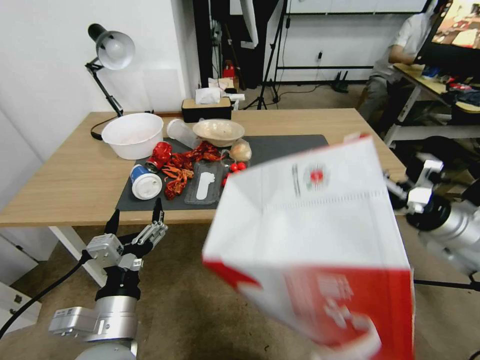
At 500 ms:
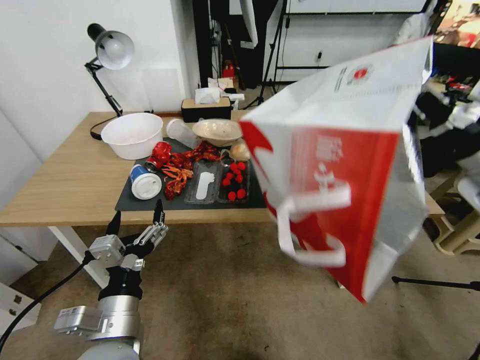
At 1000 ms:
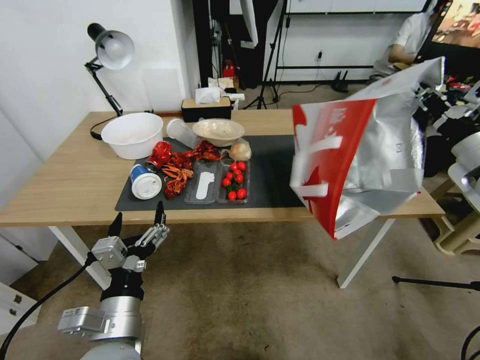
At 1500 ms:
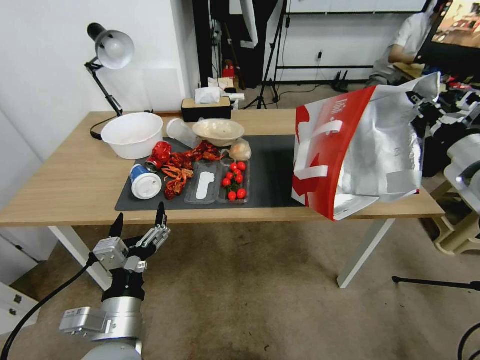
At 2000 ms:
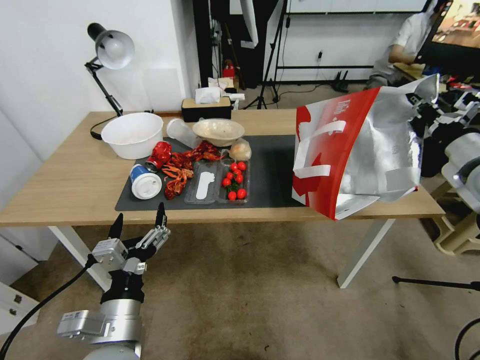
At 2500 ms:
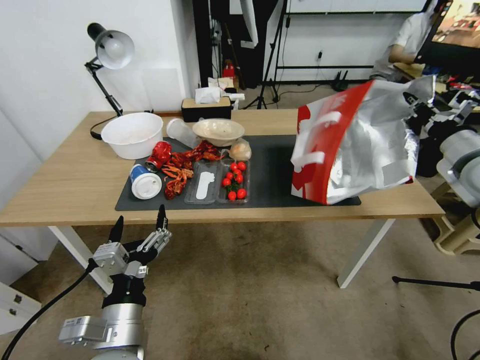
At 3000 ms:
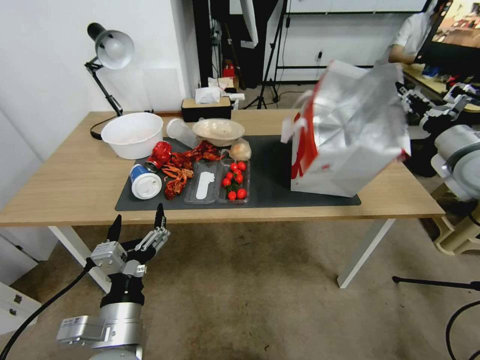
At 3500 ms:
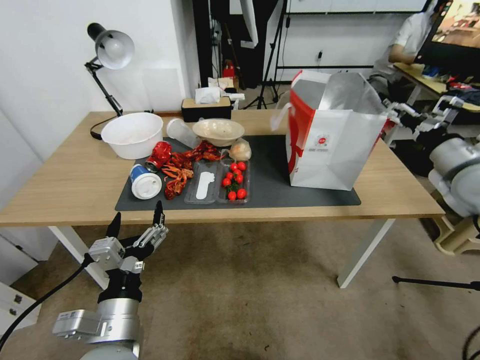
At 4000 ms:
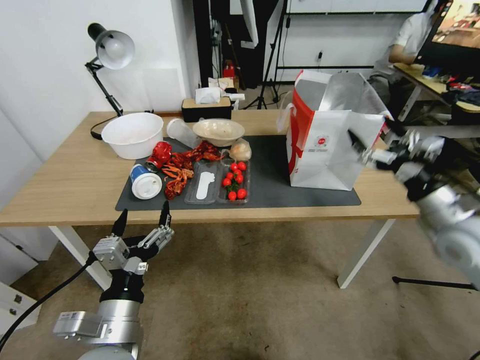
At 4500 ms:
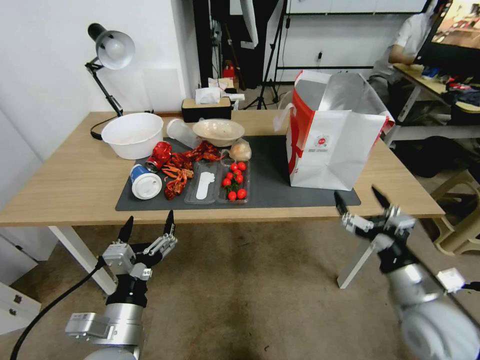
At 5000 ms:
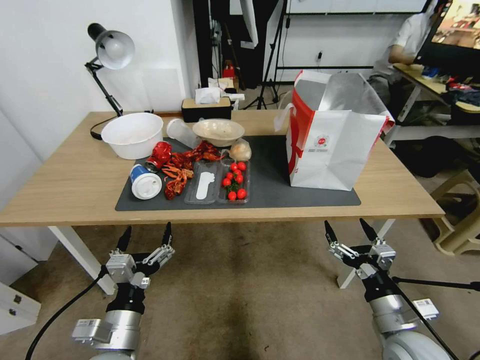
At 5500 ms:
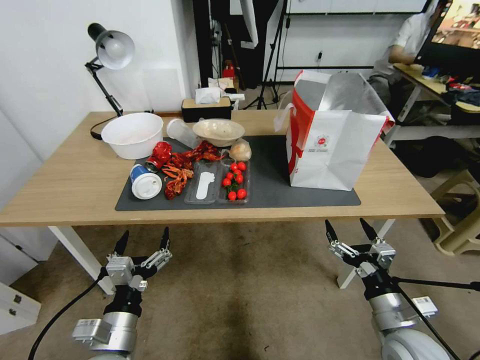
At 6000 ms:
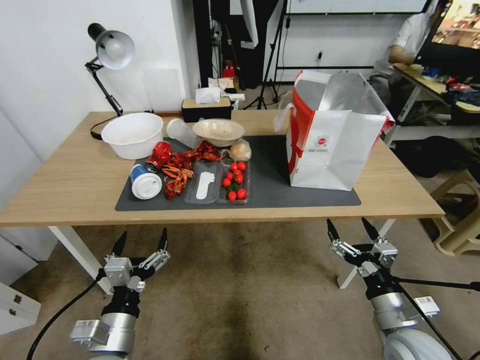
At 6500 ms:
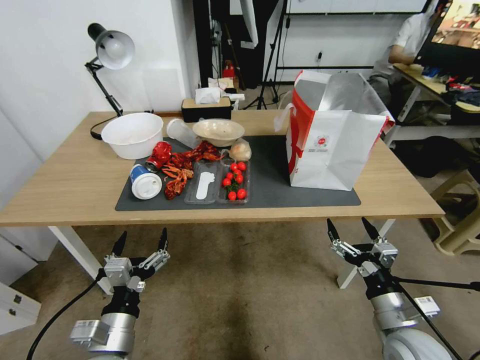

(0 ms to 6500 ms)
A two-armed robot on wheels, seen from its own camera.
Task of the whole recording: Pick up the food delivery bag from the floor and place it on the table.
0 ms - 2000 ms: The right gripper moves upward and forward, about 10 cm.
2000 ms - 4500 ms: The right gripper heads downward, backward and to the left, covering about 30 cm, and opens.
4500 ms - 6500 ms: The right gripper moves downward, approximately 5 cm. The left gripper changes place by about 5 cm.

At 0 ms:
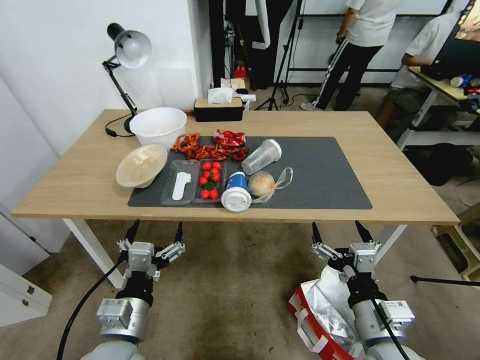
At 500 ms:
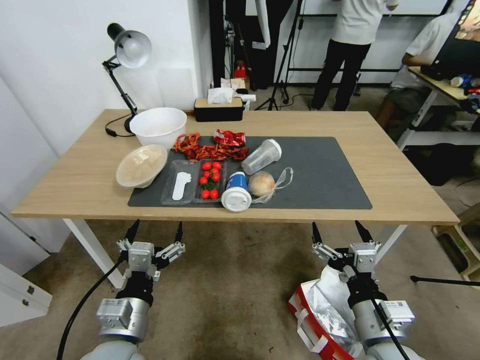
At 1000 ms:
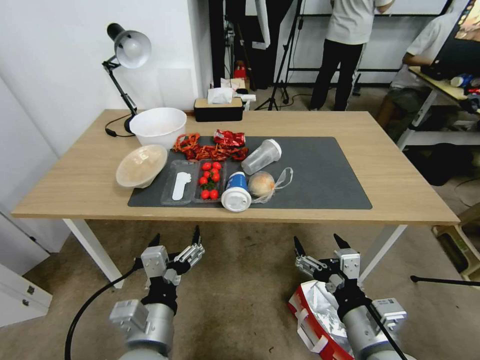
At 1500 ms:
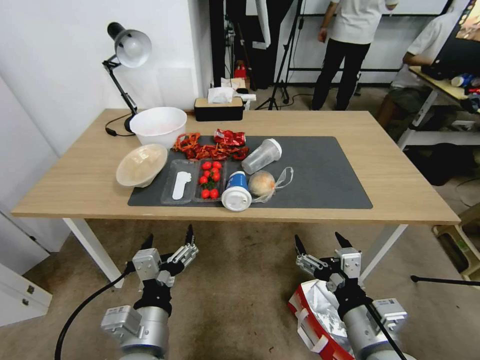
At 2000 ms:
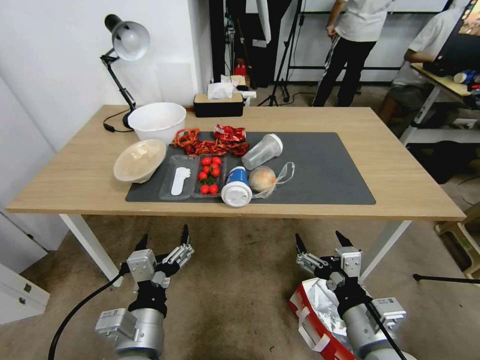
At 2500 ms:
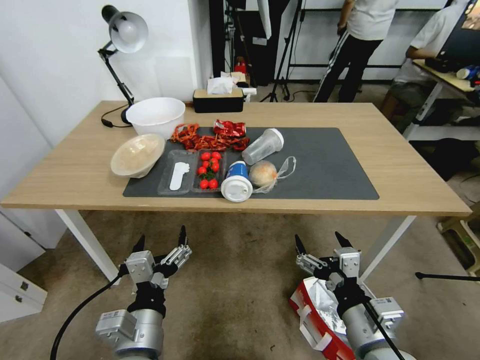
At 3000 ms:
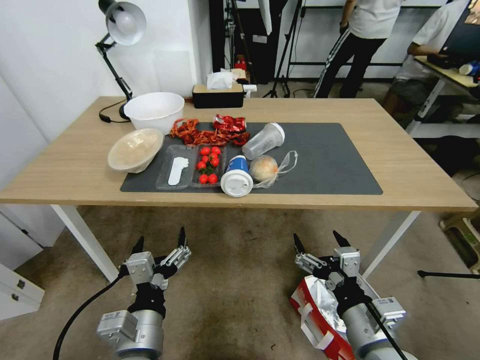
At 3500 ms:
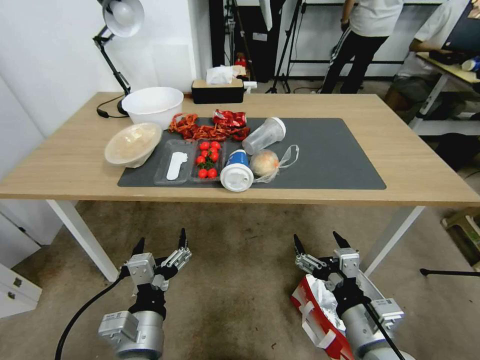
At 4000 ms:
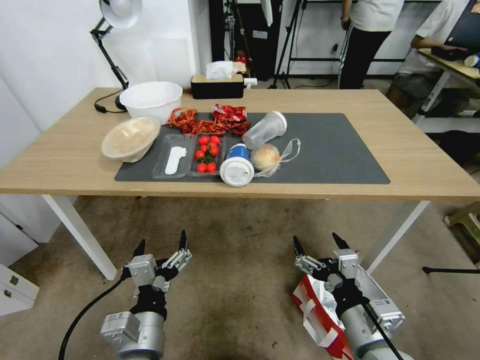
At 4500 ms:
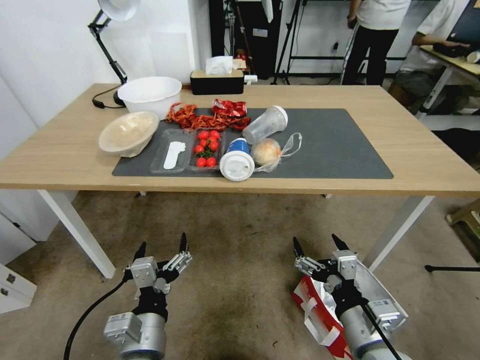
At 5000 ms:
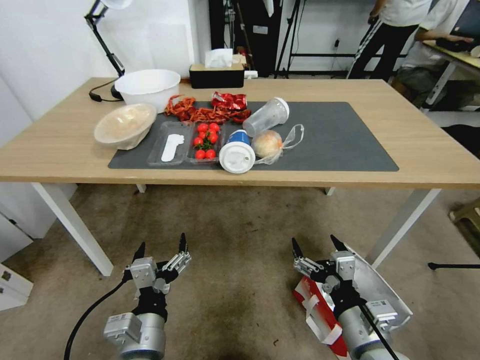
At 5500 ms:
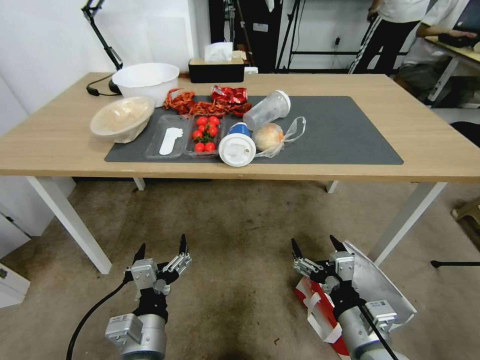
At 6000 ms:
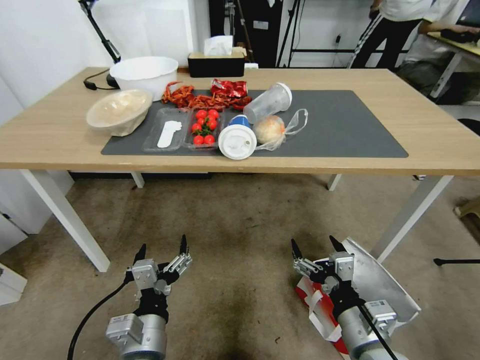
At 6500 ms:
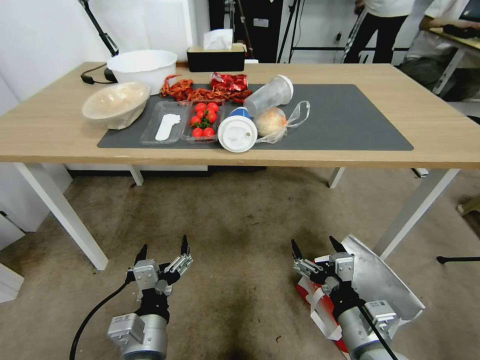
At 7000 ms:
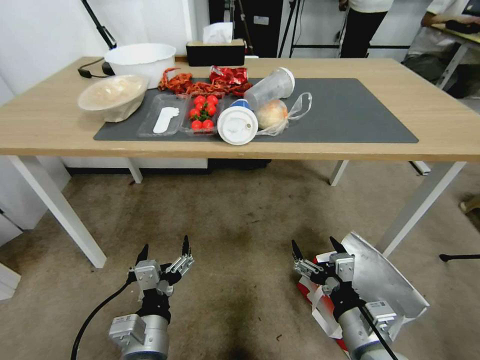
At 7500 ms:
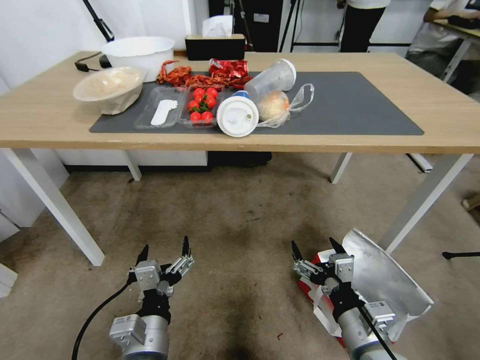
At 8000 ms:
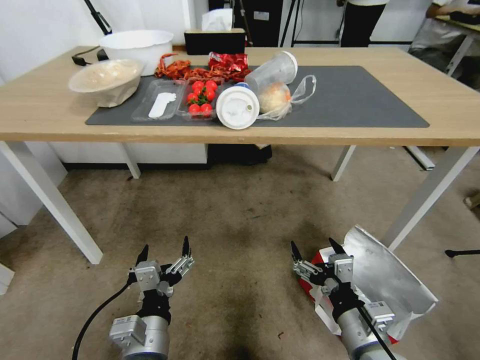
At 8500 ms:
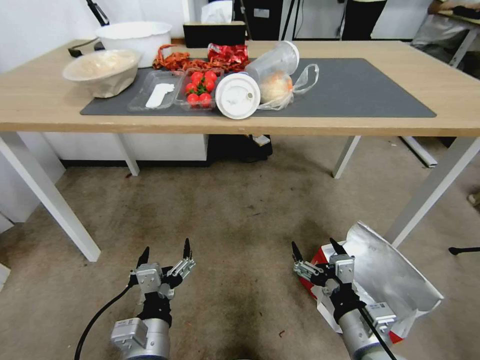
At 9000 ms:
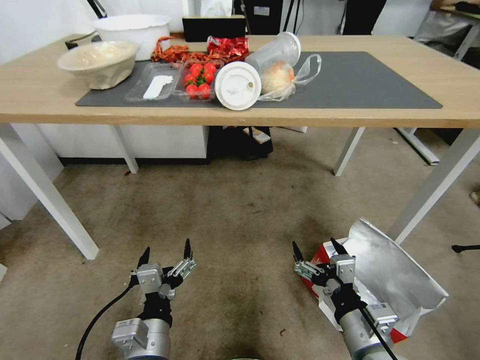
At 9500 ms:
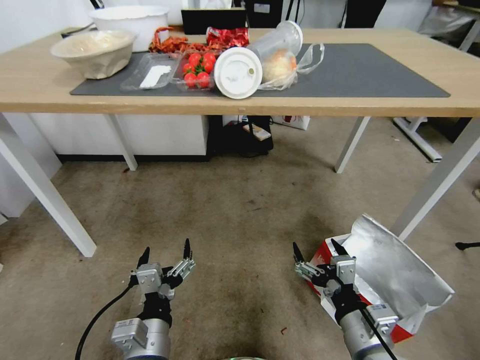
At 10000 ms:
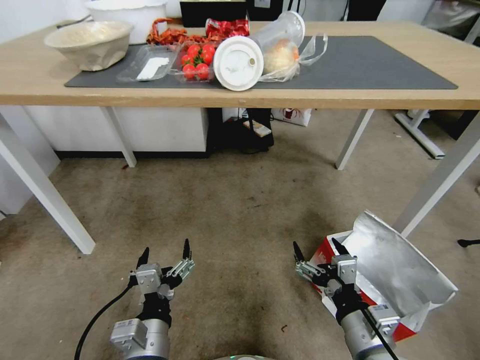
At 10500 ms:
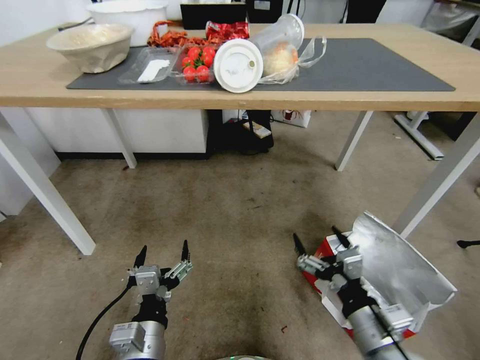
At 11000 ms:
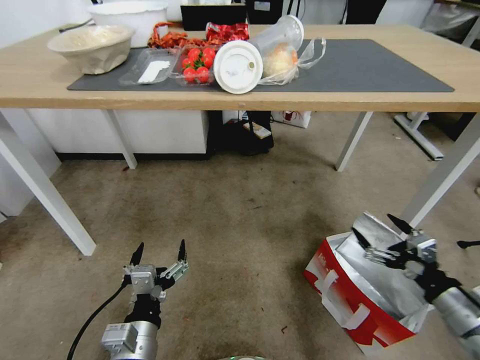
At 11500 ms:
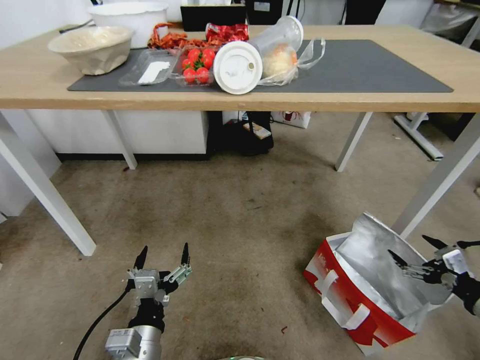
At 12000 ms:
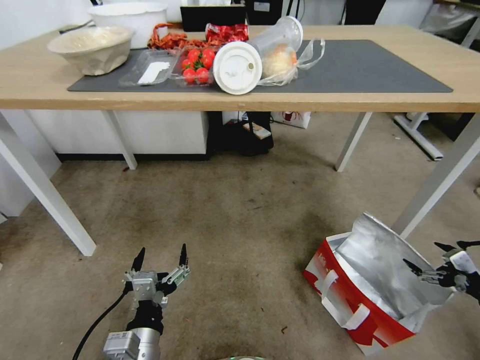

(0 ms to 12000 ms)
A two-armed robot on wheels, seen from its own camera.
Task of the whole recording: Pick up the food delivery bag from the floor and place it on the table.
10000 ms - 12000 ms: The right gripper is displaced to the right by some 35 cm.

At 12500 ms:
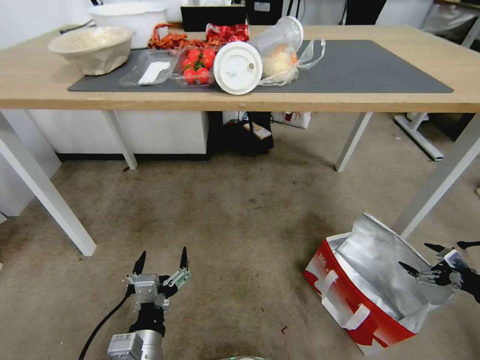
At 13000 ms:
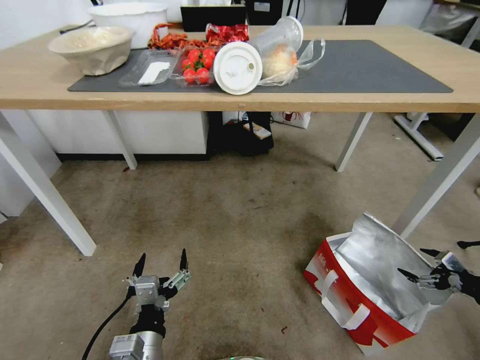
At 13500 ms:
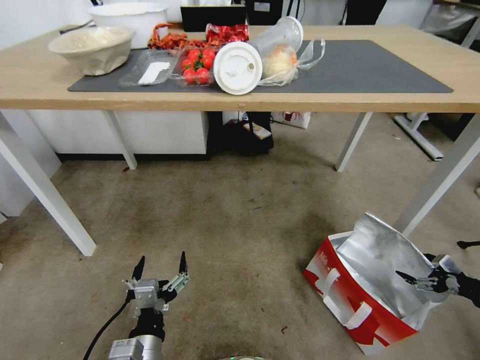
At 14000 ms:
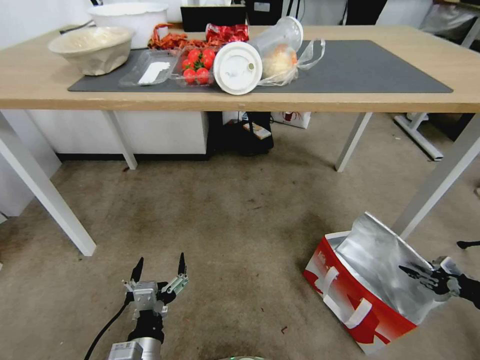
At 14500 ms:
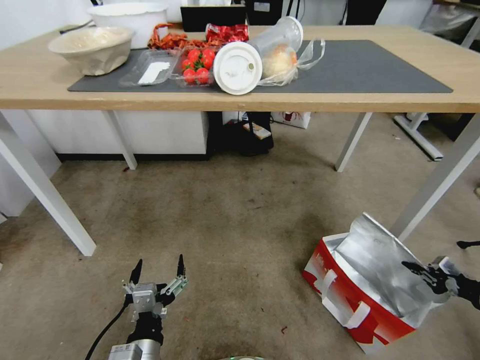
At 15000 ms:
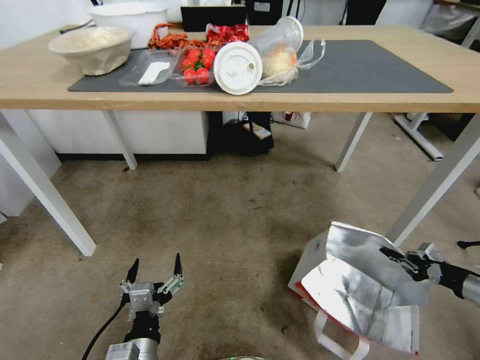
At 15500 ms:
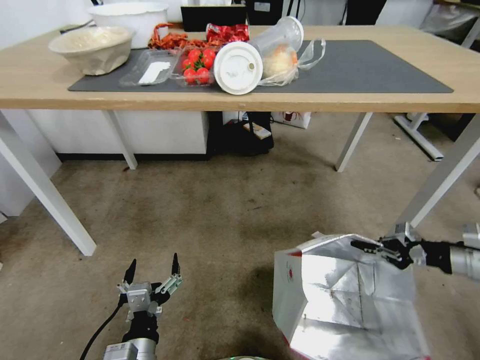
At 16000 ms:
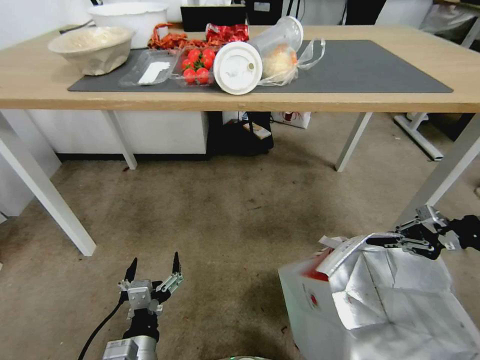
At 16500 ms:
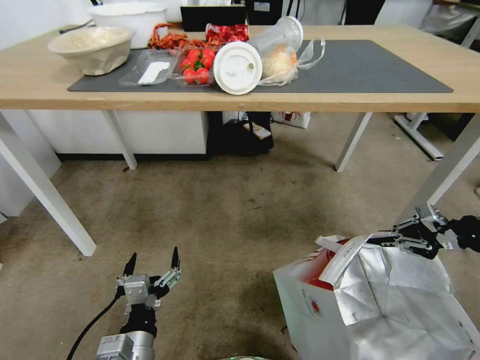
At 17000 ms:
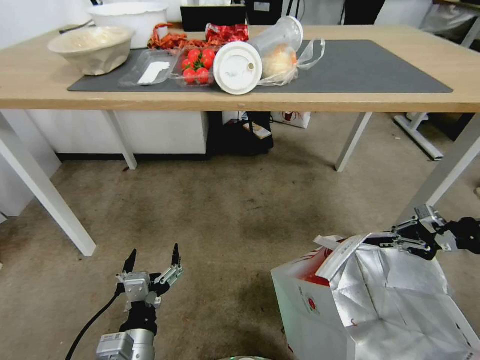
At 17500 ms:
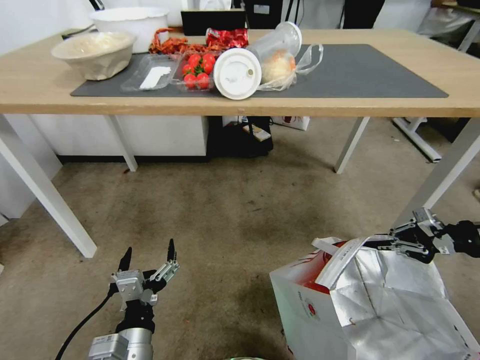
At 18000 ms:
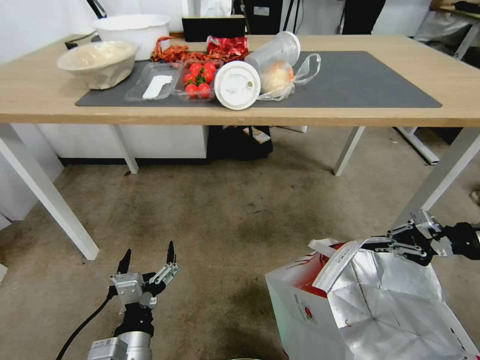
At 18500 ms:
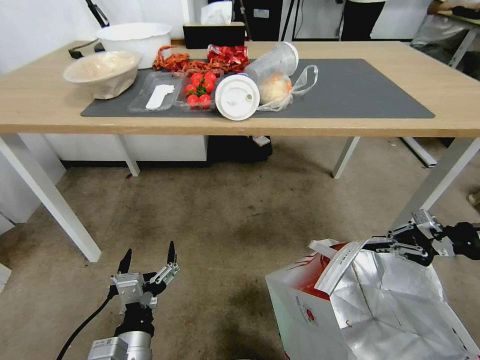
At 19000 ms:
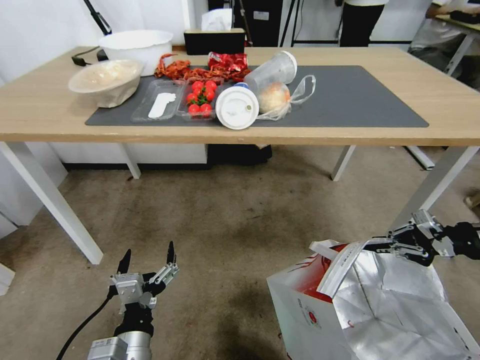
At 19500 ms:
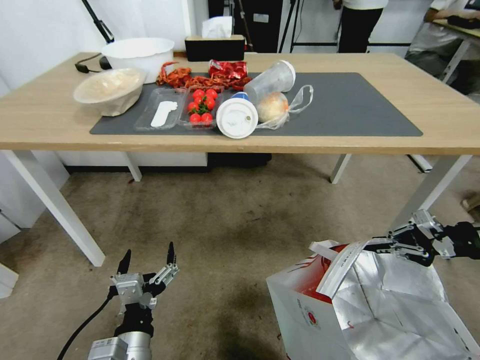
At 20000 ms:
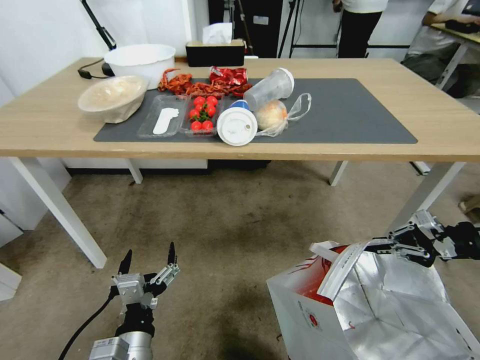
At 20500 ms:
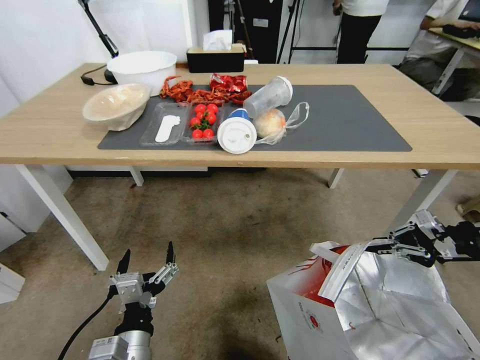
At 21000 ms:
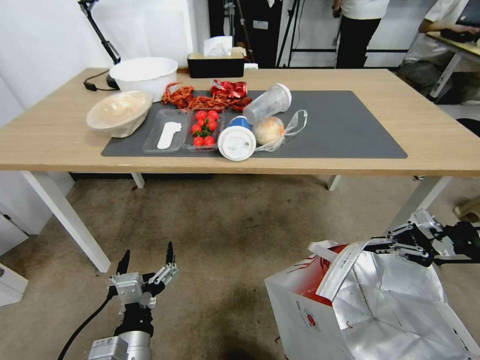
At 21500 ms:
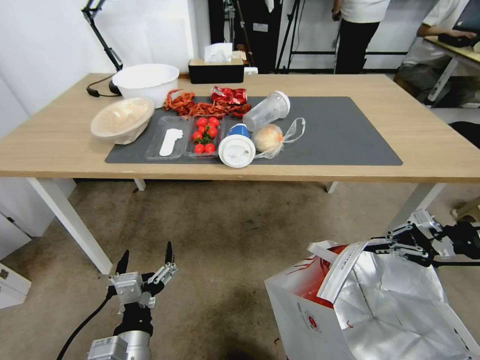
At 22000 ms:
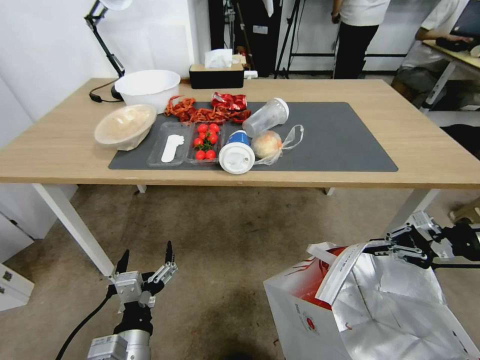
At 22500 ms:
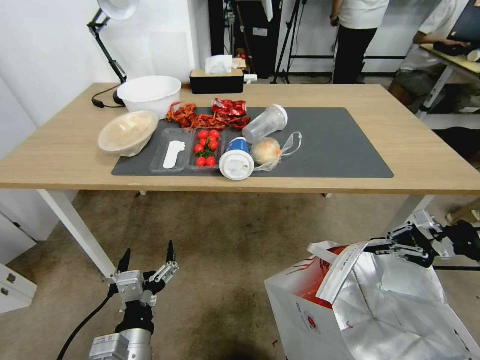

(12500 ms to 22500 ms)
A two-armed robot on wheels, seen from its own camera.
Task of the whole recording: Pick up the food delivery bag from the floor and place it on the table.
12500 ms - 14500 ms: The right gripper closes up.
14500 ms - 16500 ms: The right gripper is displaced upward, forward and to the left by roughly 25 cm.
